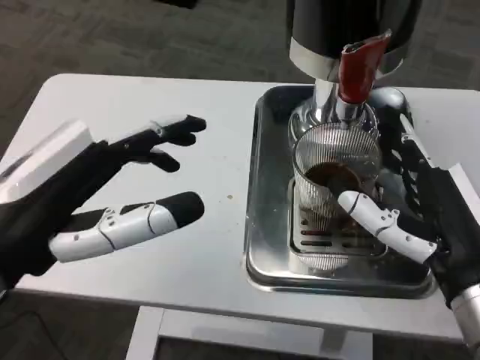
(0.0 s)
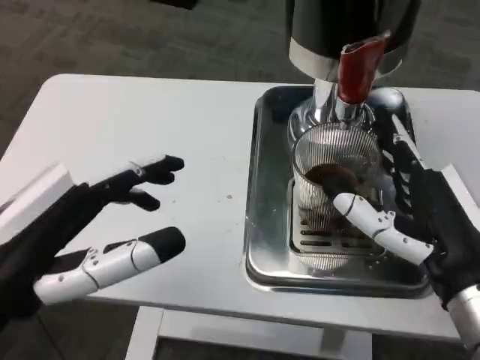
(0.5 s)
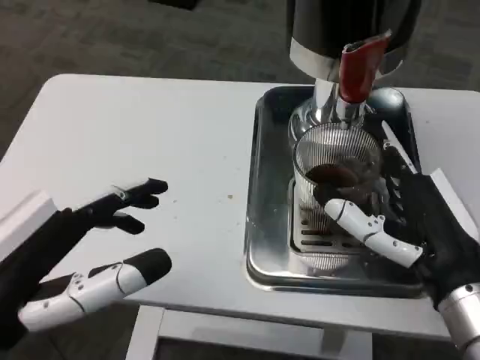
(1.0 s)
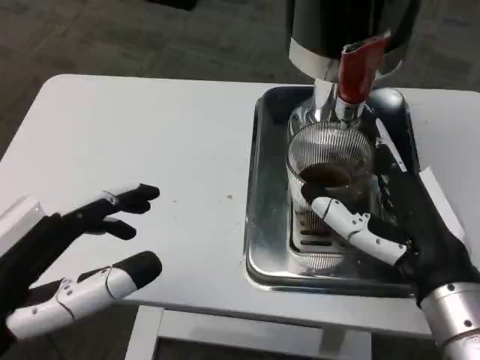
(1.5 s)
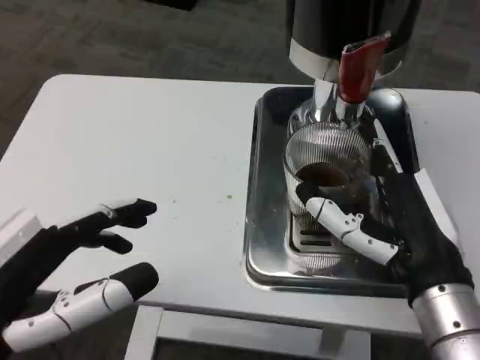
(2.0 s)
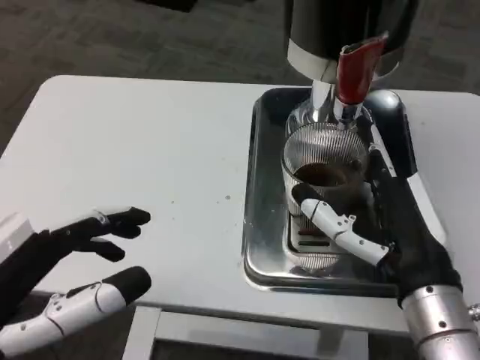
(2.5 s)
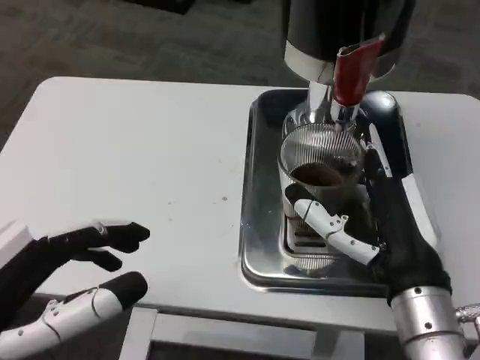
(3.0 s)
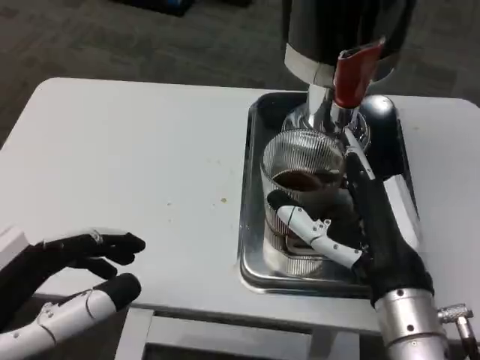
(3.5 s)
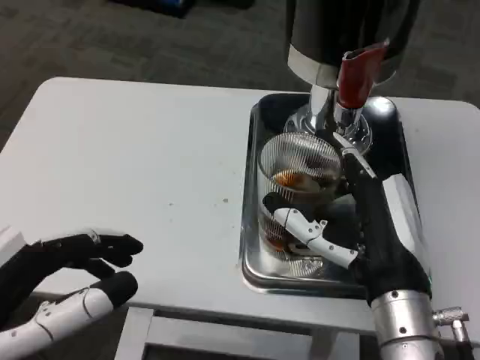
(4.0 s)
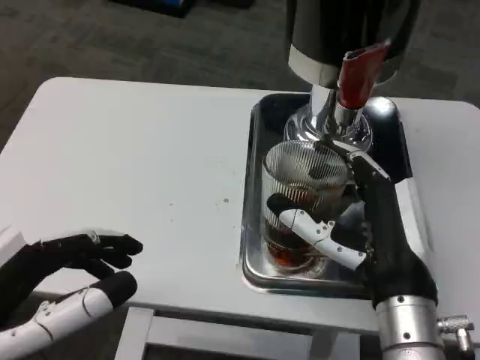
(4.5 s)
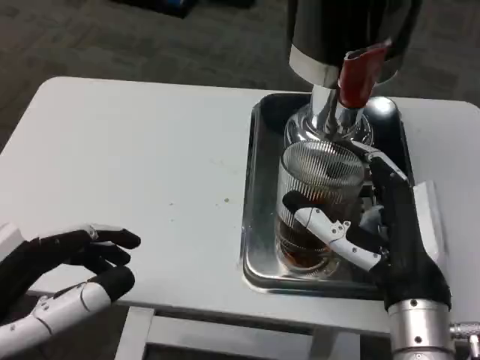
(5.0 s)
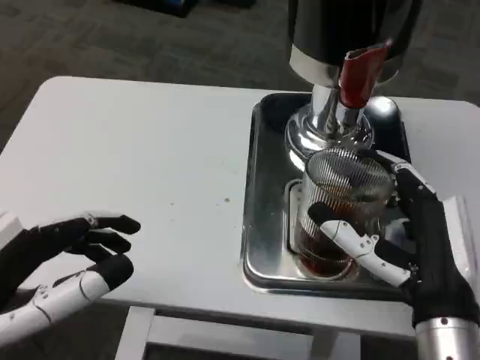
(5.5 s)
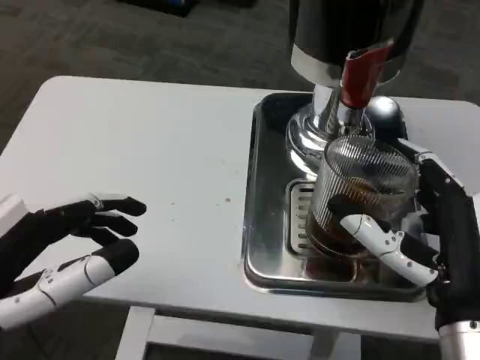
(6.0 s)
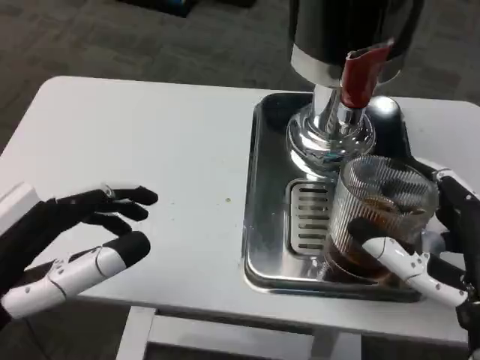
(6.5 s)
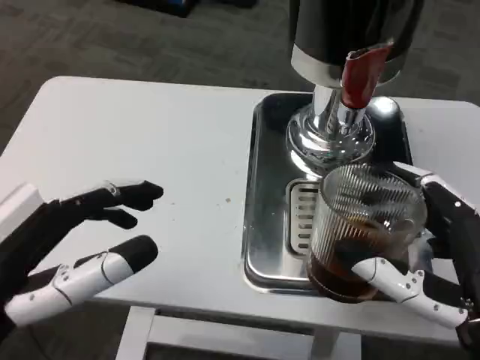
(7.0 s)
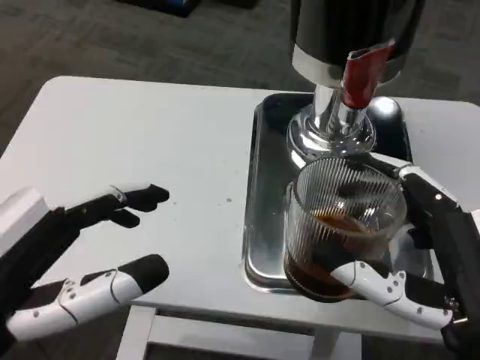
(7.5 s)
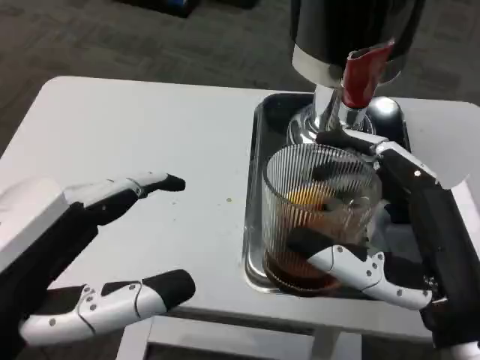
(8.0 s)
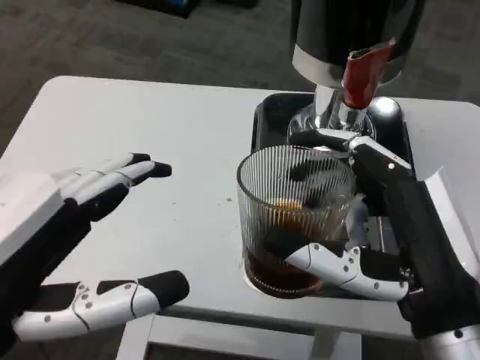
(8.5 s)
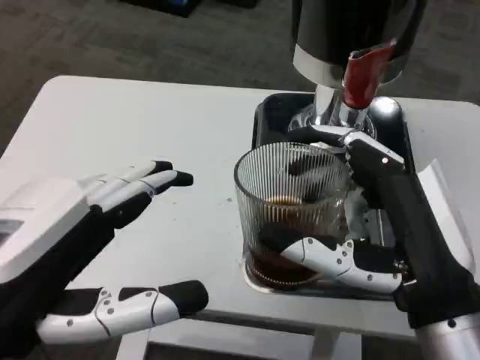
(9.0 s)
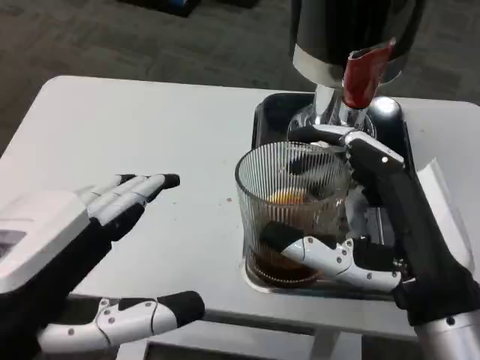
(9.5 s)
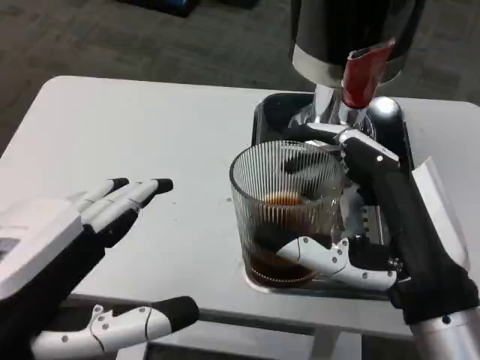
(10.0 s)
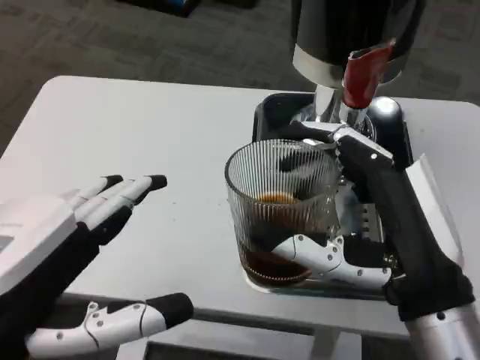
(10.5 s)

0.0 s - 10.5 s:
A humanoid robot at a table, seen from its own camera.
Task of the whole recording: Grasp the cup under the faucet to collect the drink, then remove the cup.
0.0 s - 2.0 s: The left hand changes place by approximately 5 cm.
4.0 s - 6.5 s: The right hand is displaced to the right and backward by roughly 10 cm.

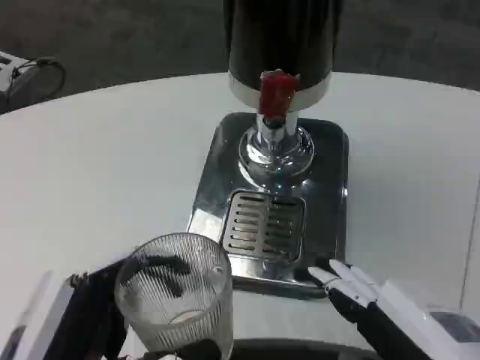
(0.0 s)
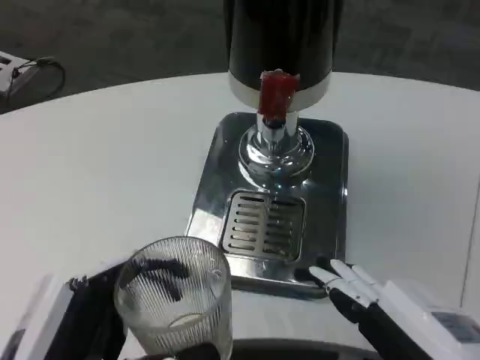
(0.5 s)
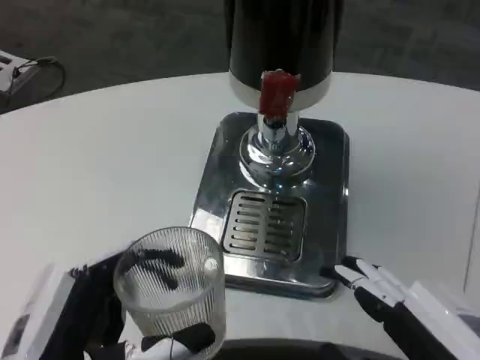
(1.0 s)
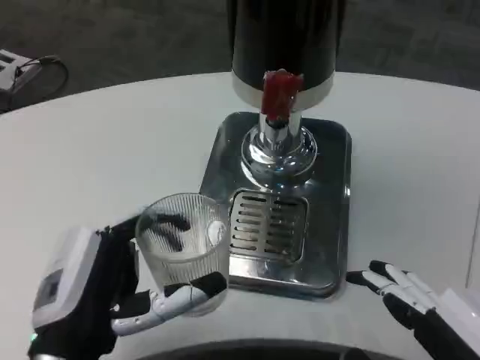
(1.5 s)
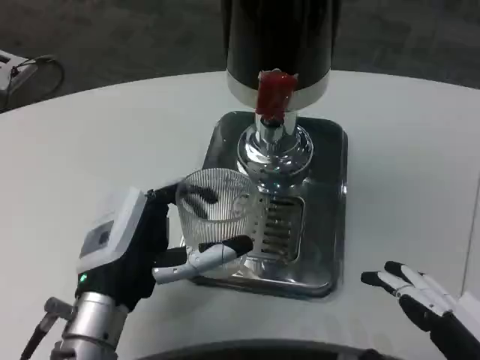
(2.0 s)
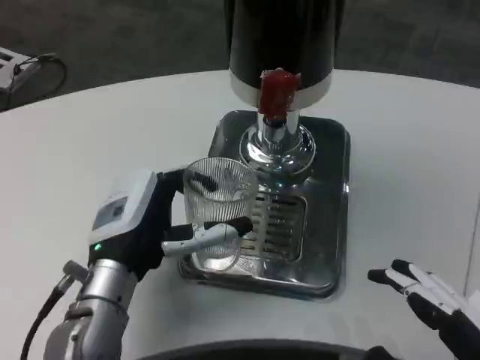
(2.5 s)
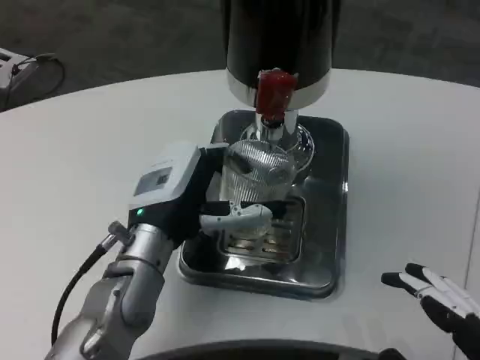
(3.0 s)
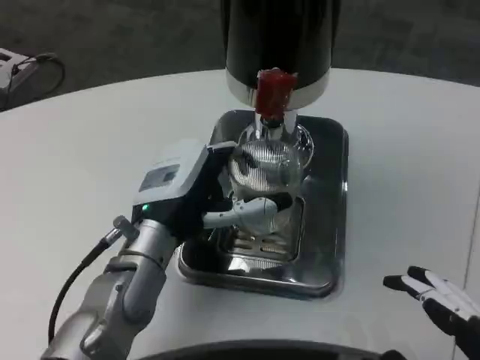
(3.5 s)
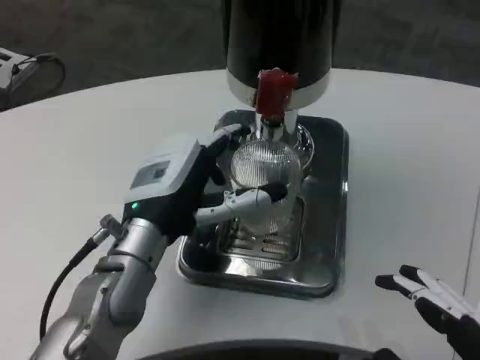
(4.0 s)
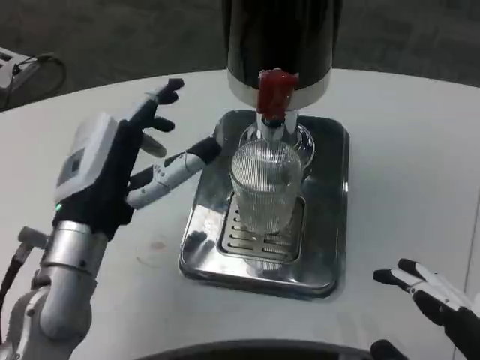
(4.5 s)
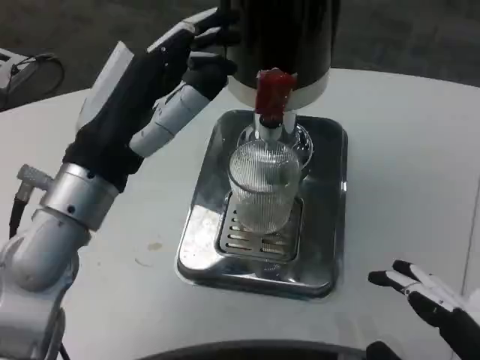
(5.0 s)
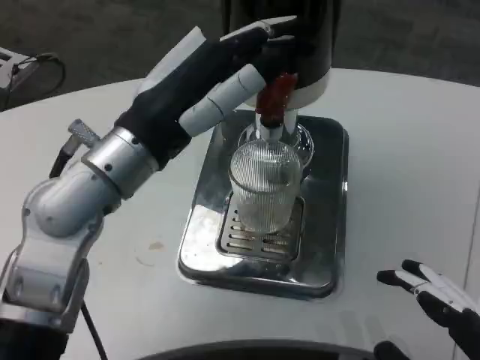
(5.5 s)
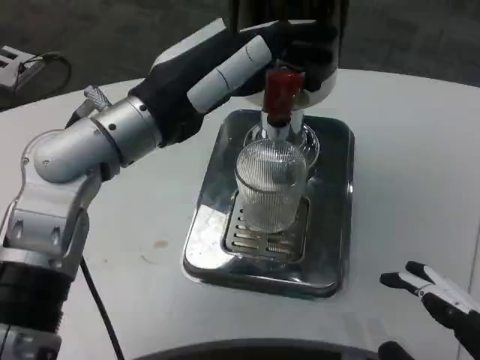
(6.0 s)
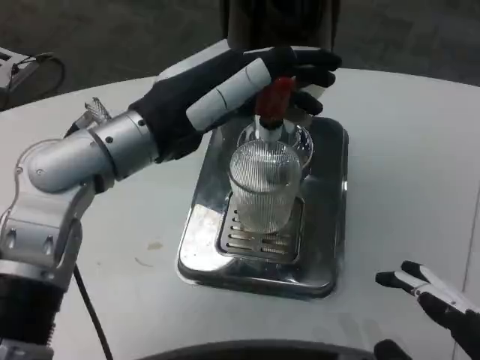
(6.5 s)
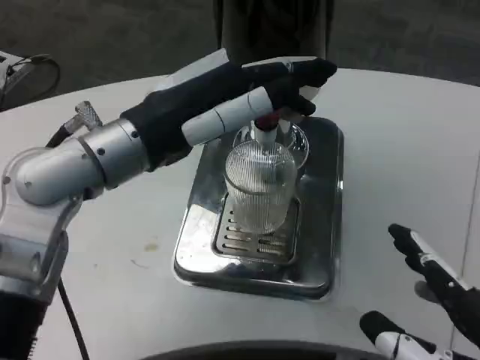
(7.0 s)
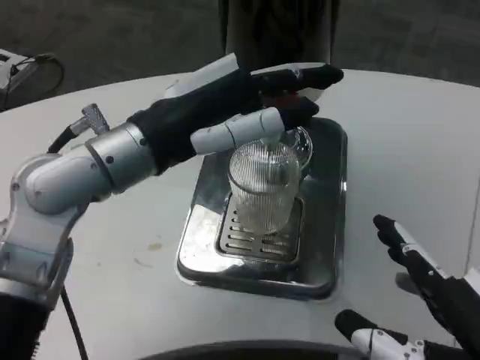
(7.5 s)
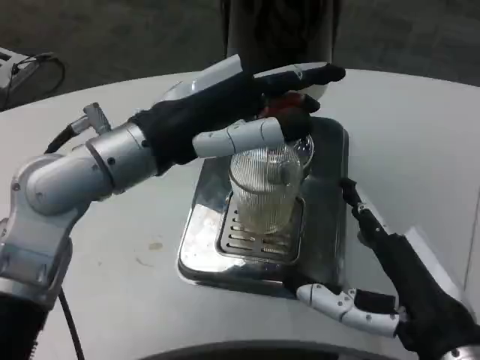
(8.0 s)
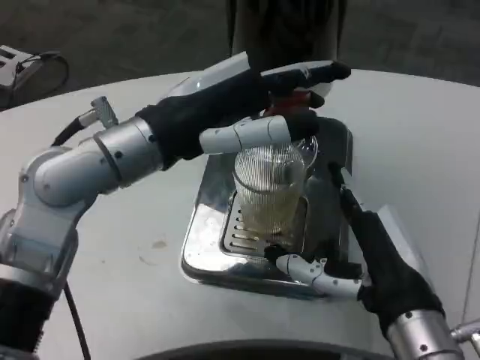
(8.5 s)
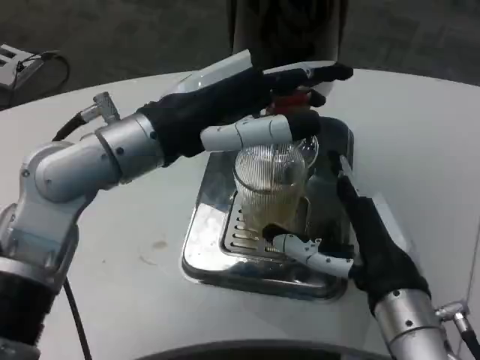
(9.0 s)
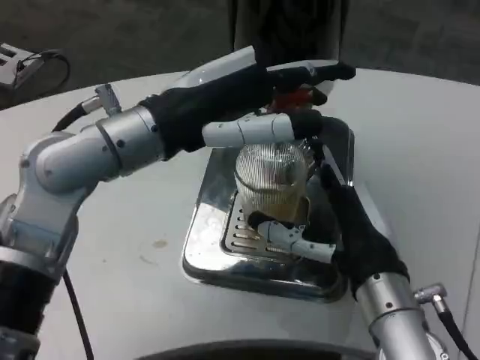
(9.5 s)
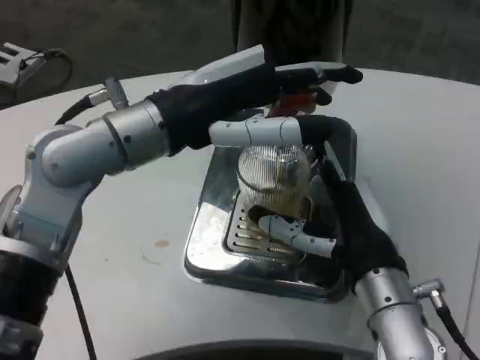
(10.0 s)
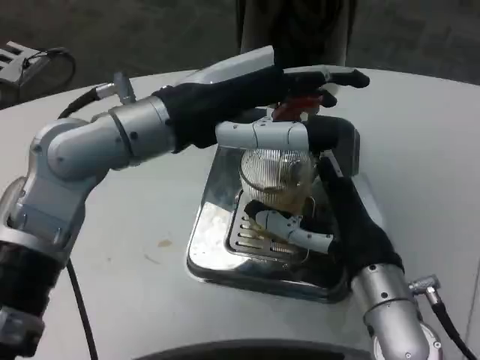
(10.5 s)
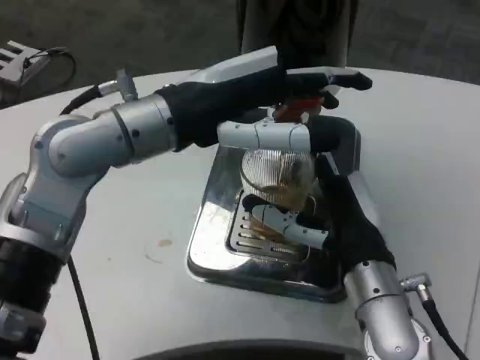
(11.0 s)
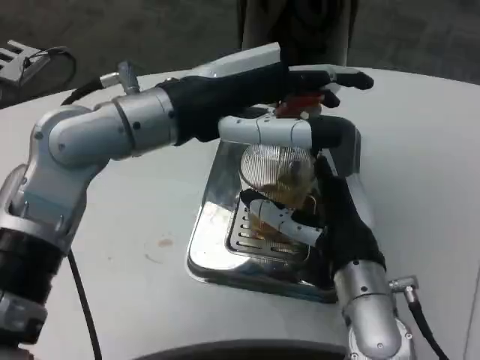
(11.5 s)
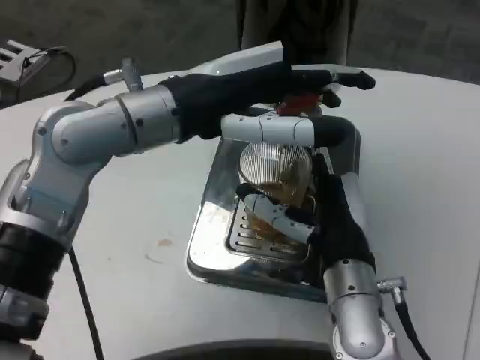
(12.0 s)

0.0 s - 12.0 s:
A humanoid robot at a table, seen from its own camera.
Task of the whole recording: Grasp the cup under the faucet to collect the drink, then remove the cup.
0.0 s - 2.0 s: The left hand shifts some 15 cm forward.
2.0 s - 4.0 s: The left hand shifts approximately 5 cm forward.
4.0 s - 6.0 s: The left hand heads upward, covering approximately 15 cm.
6.0 s - 8.0 s: The right hand moves forward and to the left, some 10 cm.
8.0 s - 10.0 s: The right hand heads forward, covering about 10 cm.

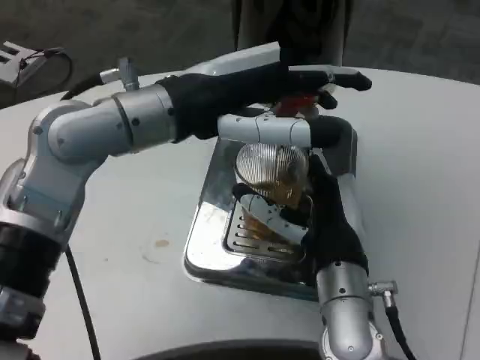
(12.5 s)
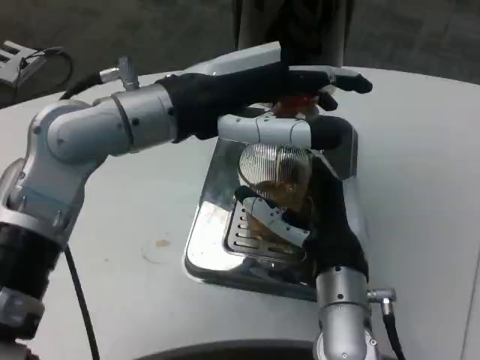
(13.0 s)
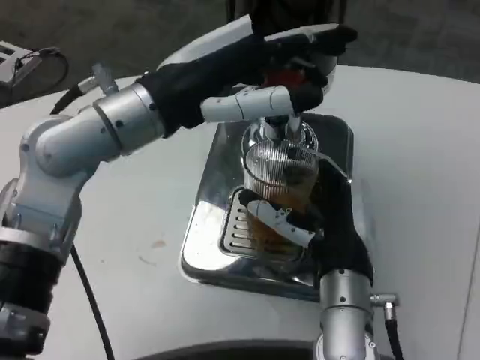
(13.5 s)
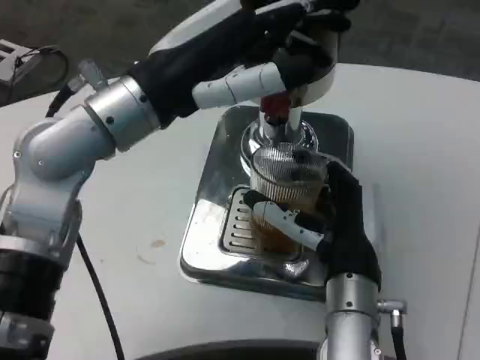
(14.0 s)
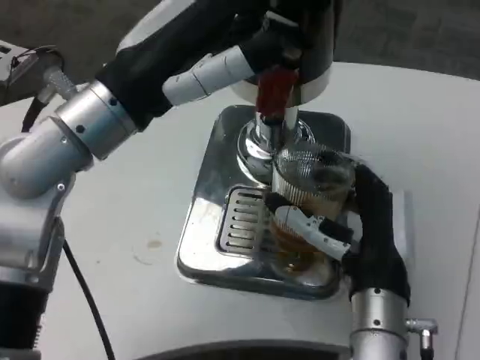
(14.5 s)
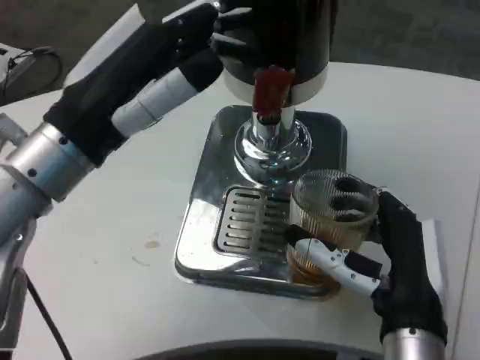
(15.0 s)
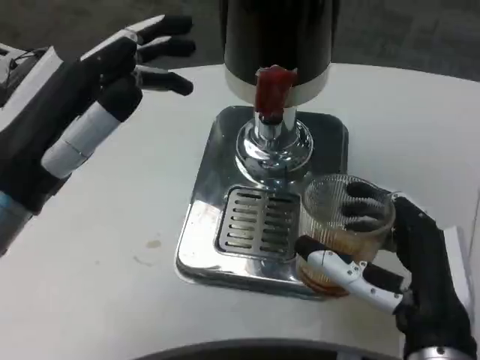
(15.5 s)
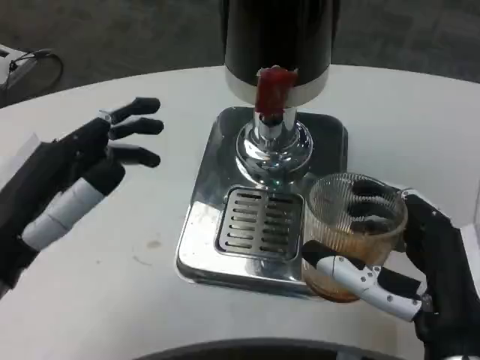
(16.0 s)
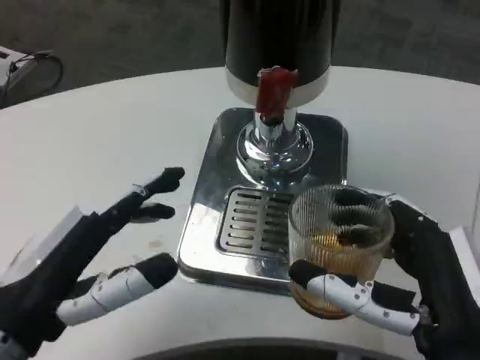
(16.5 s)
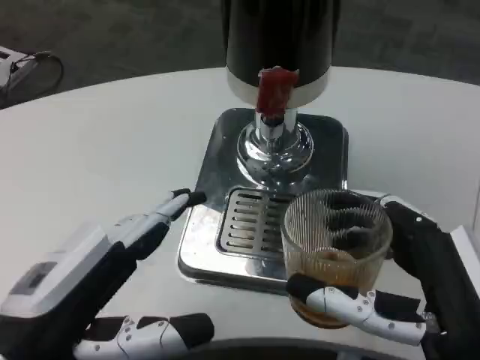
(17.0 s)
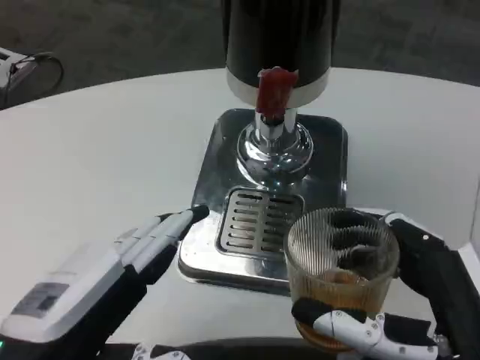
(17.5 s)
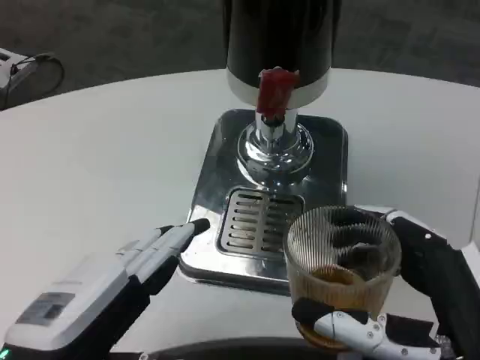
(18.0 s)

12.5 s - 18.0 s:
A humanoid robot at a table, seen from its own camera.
Task of the whole recording: Grasp the cup under the faucet to collect the drink, then remove the cup.
14.5 s - 16.0 s: The right hand travels backward by roughly 10 cm, while the left hand shifts approximately 15 cm downward, backward and to the left.
16.0 s - 18.0 s: The left hand is displaced backward by approximately 5 cm.
